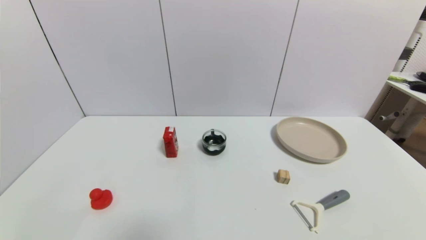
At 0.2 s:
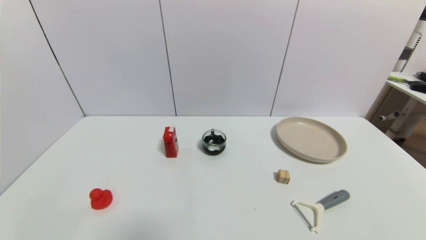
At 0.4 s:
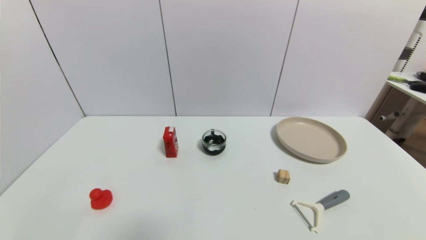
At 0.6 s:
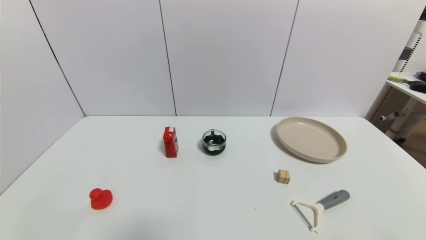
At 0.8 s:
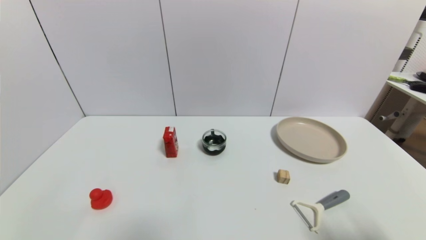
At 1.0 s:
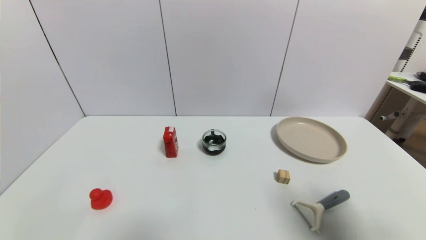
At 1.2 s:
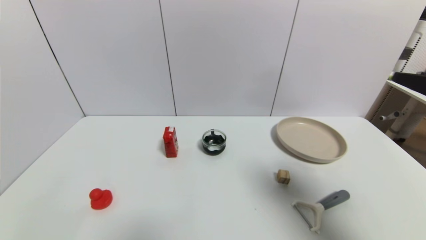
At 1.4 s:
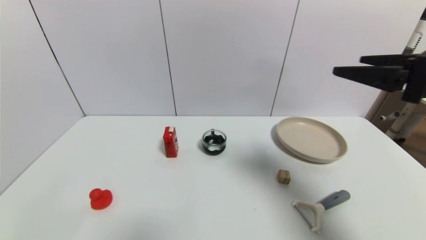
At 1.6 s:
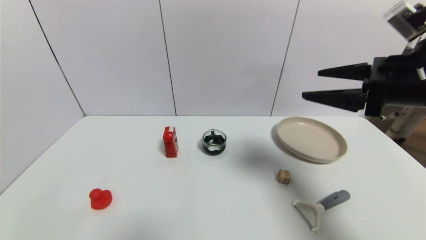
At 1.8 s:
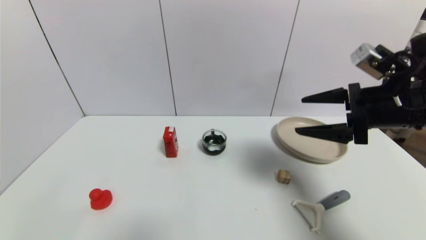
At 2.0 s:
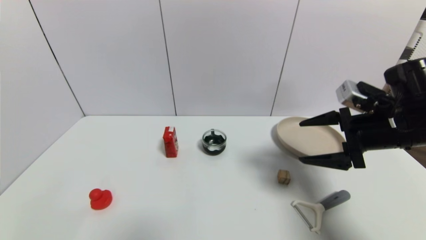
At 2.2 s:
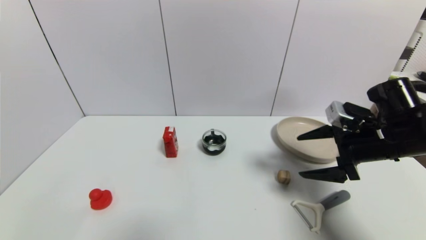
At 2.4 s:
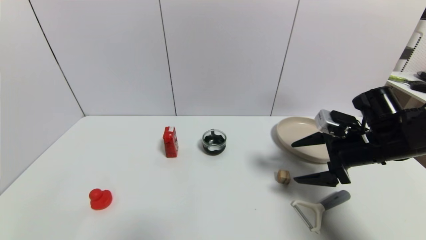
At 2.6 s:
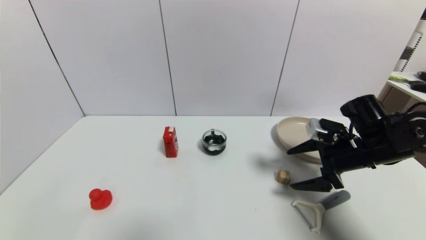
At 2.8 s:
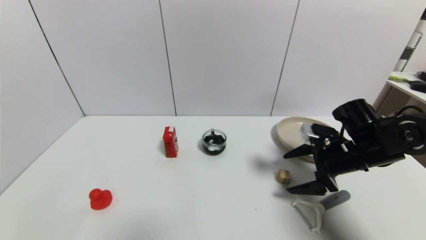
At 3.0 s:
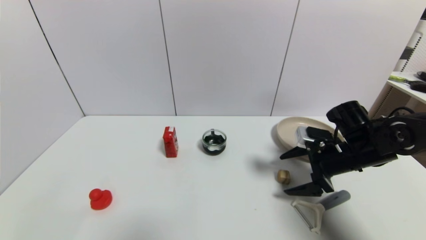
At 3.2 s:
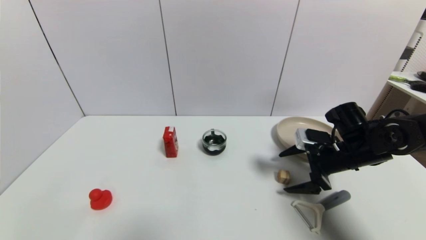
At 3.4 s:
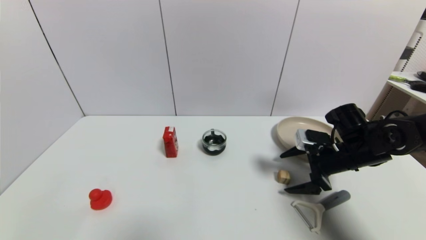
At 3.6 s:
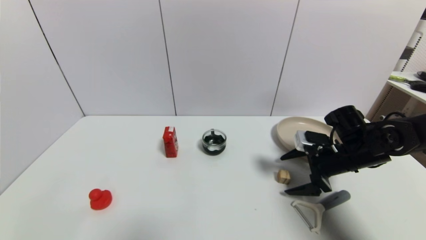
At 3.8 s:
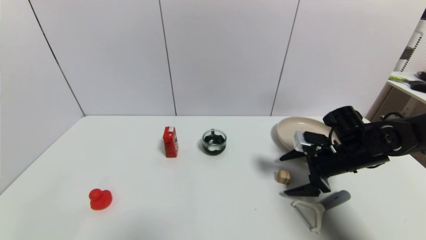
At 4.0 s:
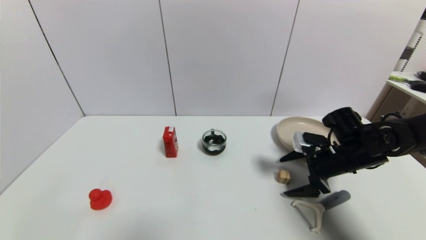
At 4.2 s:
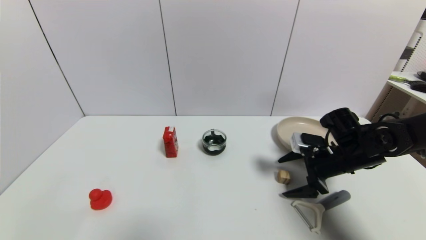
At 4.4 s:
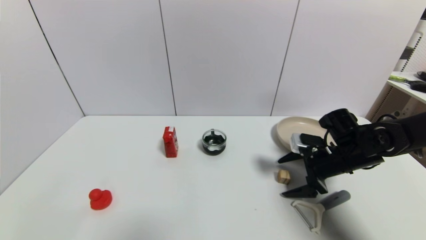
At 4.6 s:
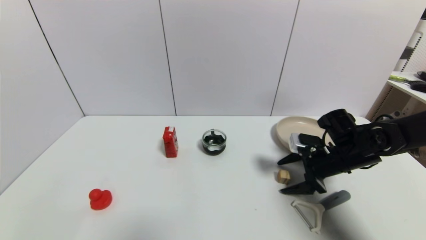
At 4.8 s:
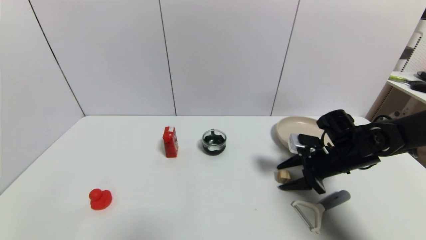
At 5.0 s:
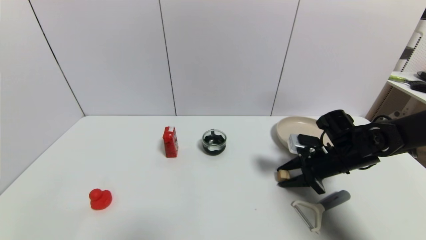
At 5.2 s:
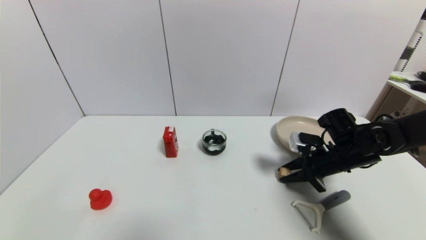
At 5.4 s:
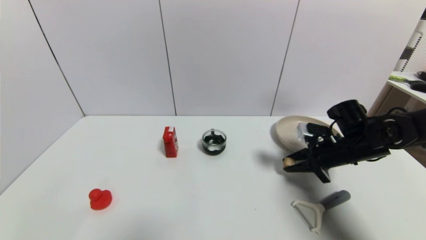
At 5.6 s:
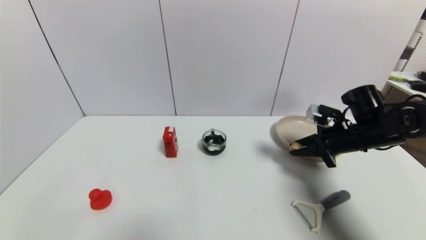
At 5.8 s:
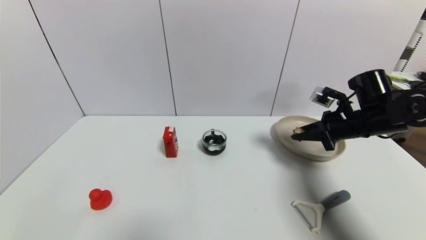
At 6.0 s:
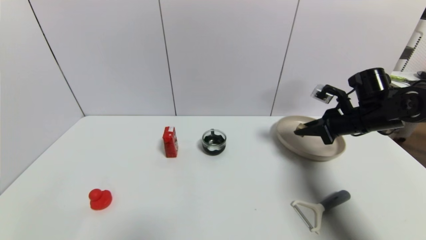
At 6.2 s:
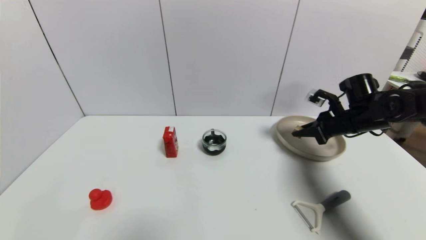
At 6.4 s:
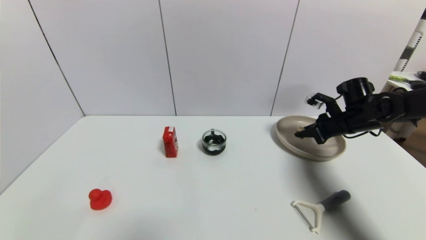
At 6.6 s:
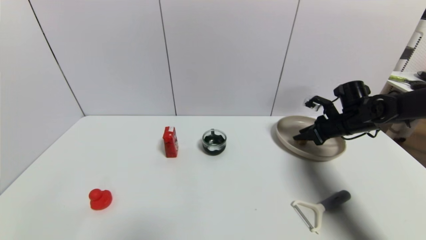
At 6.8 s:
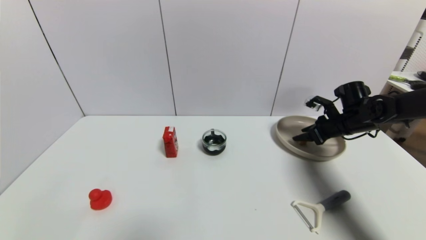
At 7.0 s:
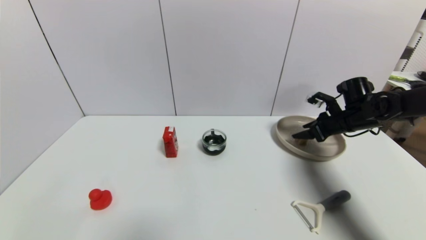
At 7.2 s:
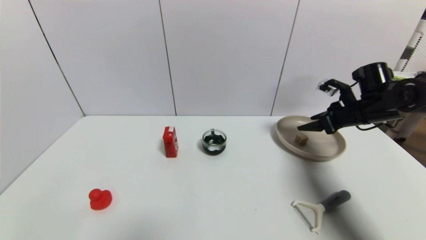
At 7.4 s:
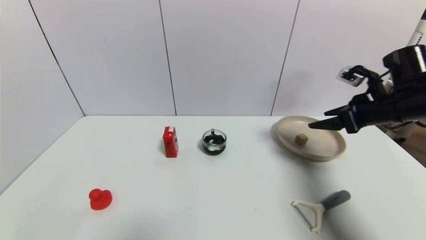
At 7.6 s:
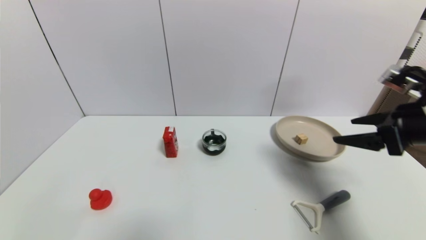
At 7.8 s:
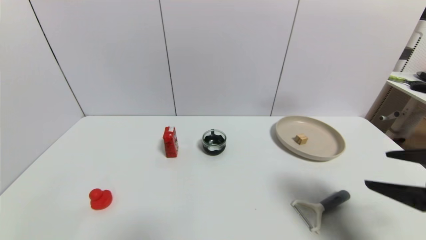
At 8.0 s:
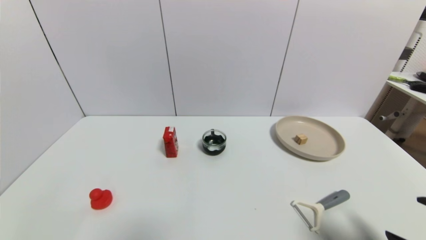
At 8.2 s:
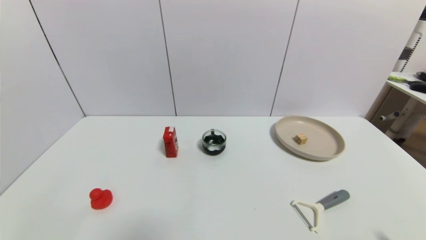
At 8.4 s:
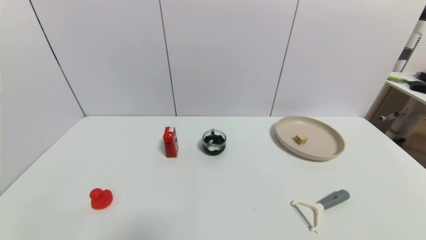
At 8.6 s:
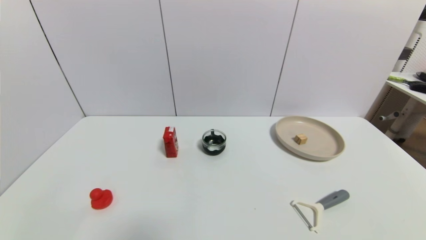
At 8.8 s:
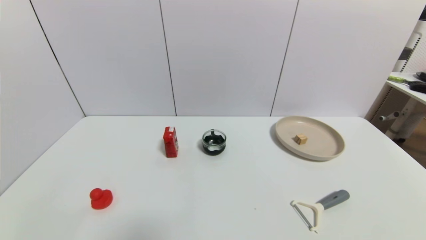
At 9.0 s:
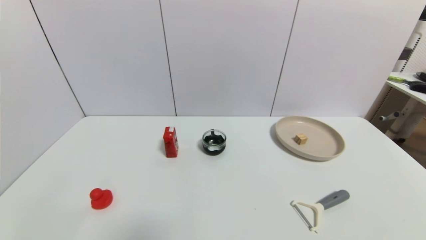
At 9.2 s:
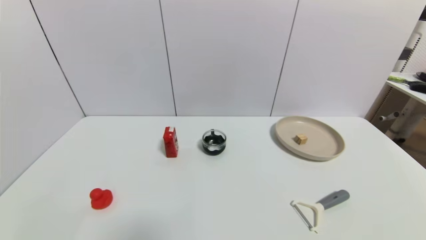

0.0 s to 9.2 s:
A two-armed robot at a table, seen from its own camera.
Task of the whole recording: use a gripper to pick the target object and place on the brown plate.
Step, 0.0 to 5.2 s: Grasp the square wooden block with the right gripper.
Step, 5.4 to 7.0 s: Place the square wooden block on the brown plate with the right gripper.
0.0 to 1.6 s: The right gripper shifts some 35 cm forward and upward.
1.6 to 3.0 s: The right gripper moves downward, roughly 15 cm.
3.0 to 4.6 s: There are only small adjustments of the grippers.
4.6 to 6.2 s: The right gripper moves upward, forward and to the right, about 10 cm, and closes up.
6.2 to 7.6 s: The right gripper shifts approximately 15 cm backward and upward, and opens.
7.6 to 9.2 s: The right gripper shifts about 30 cm backward and downward.
